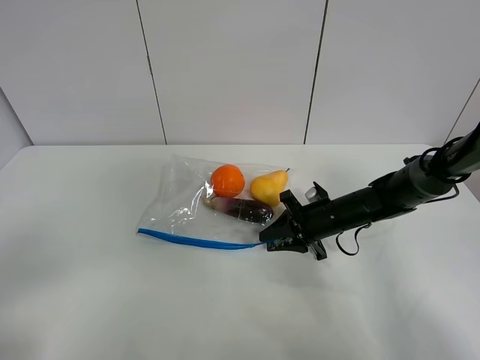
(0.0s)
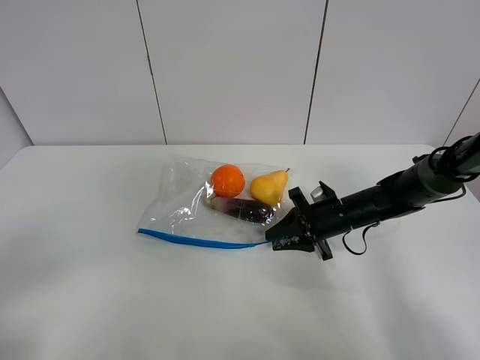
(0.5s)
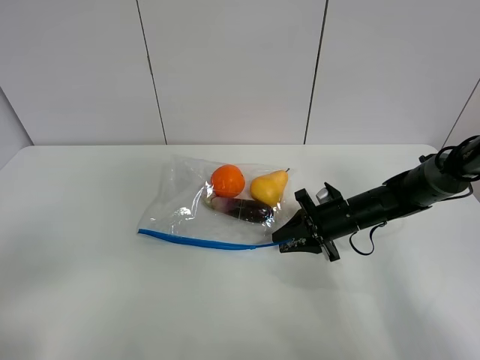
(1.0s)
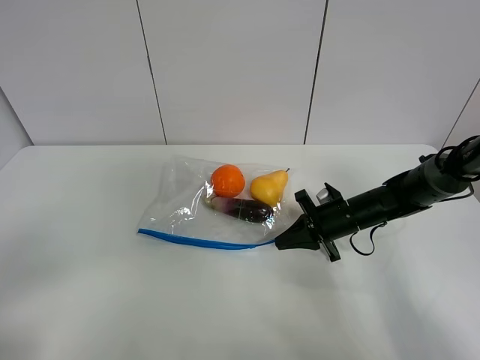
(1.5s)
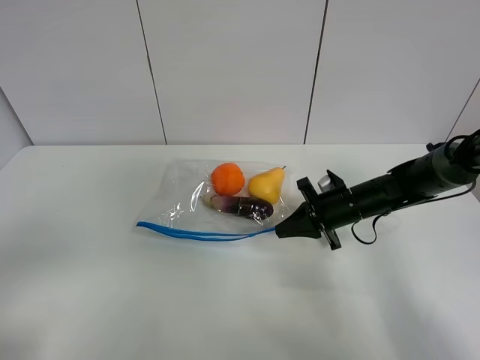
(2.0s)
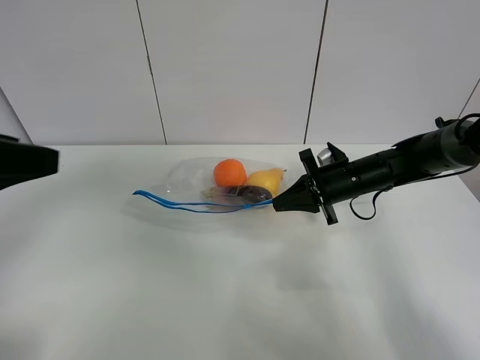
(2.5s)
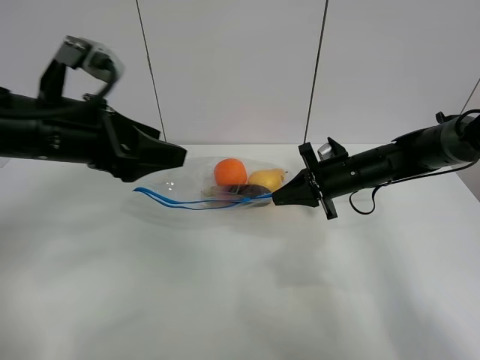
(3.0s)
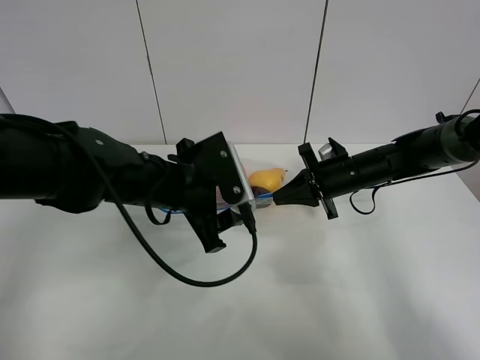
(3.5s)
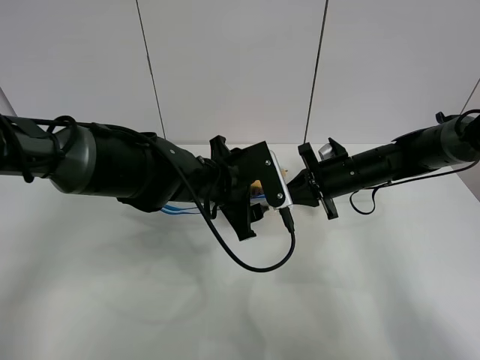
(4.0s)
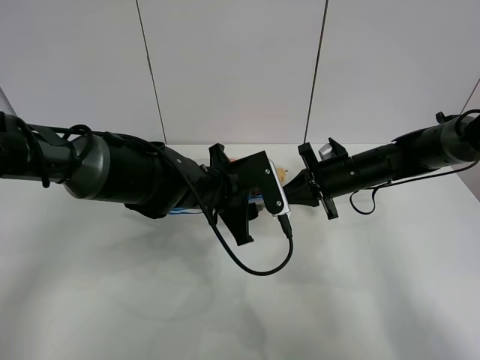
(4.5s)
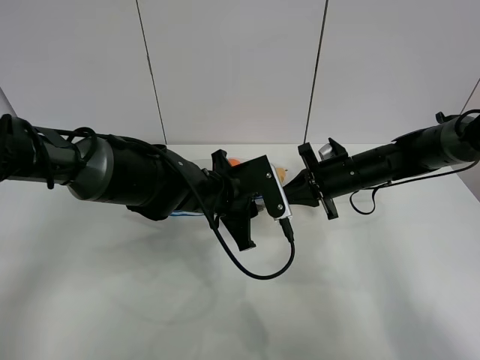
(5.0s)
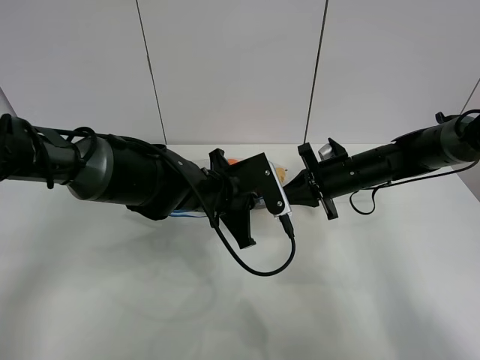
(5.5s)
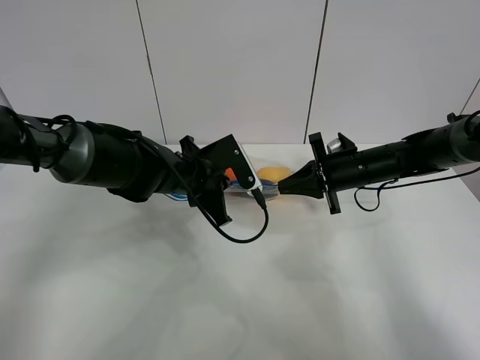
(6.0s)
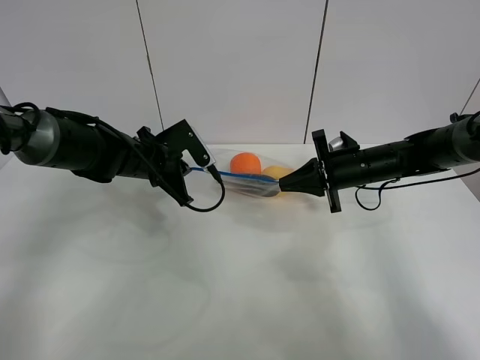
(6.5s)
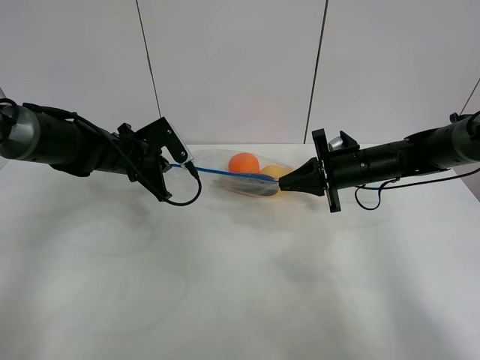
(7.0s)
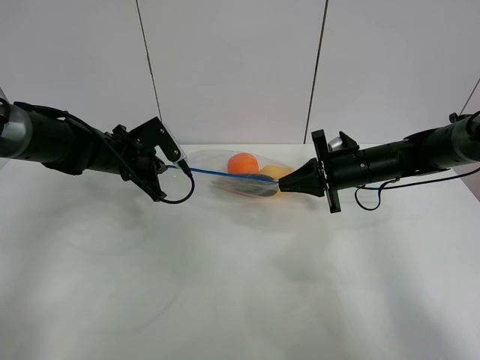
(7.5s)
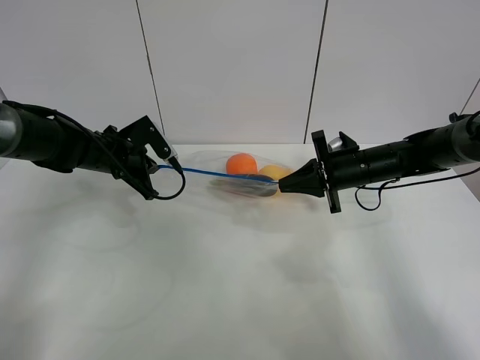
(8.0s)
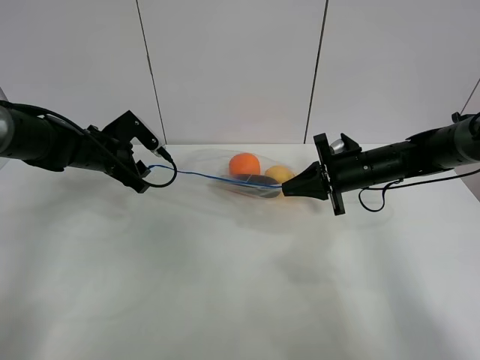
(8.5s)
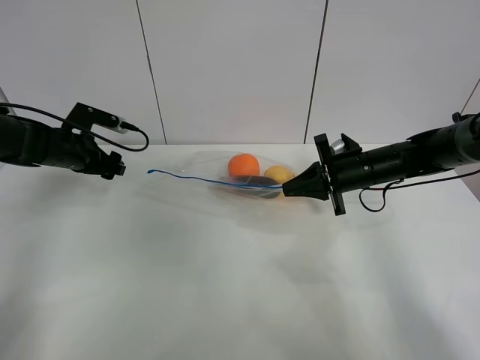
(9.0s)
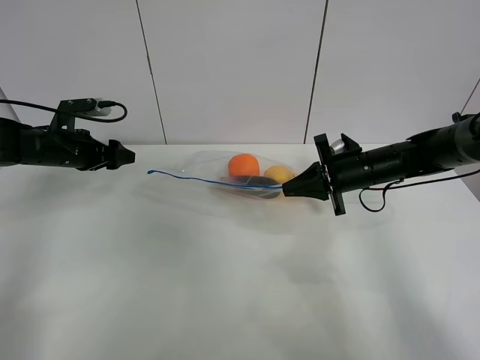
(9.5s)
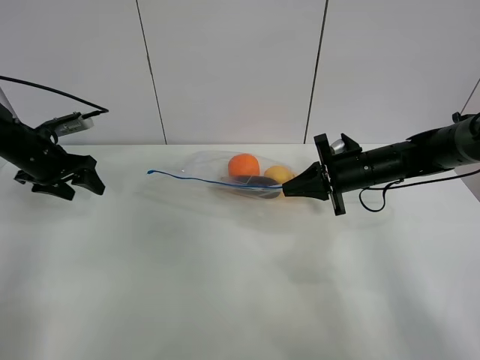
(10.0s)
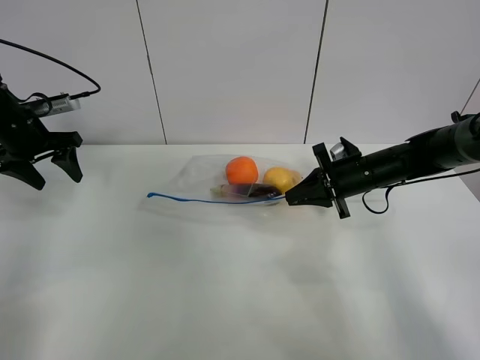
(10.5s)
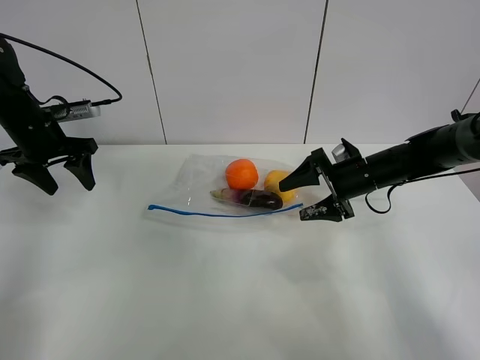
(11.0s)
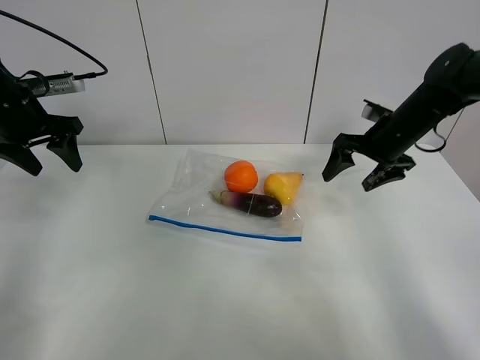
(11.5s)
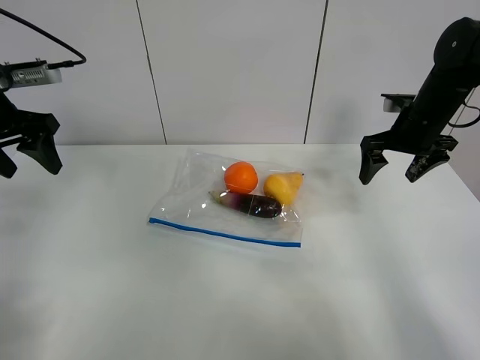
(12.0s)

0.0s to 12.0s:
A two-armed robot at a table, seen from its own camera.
Step, 1.5s to 2.5s: Lift the fruit bag with your right gripper.
Step, 3.0s to 8.5s: Pull the fruit bag with left gripper.
0.0s to 2.0s: There are only small adjustments of the grippers.
2.0s to 4.0s: The left gripper heads forward, to the right and downward, covering roughly 40 cm.
4.0s to 6.0s: The left gripper moves to the left, about 5 cm, and closes.
6.0s to 8.0s: The left gripper is displaced to the left by roughly 15 cm.
8.0s to 10.0s: The left gripper moves to the left, some 15 cm, and opens.
10.0s to 12.0s: The right gripper goes about 10 cm upward and to the right, and opens; the left gripper is displaced upward and backward by about 15 cm.

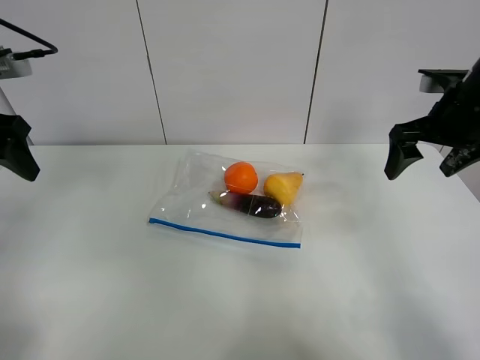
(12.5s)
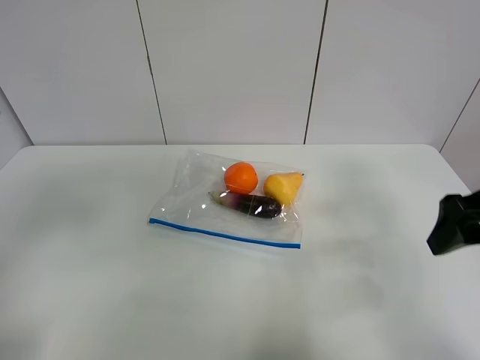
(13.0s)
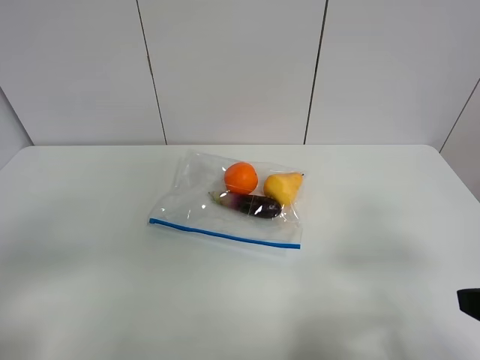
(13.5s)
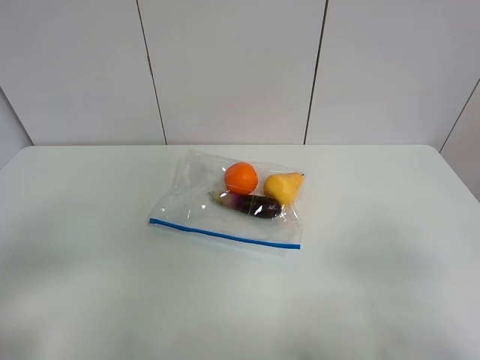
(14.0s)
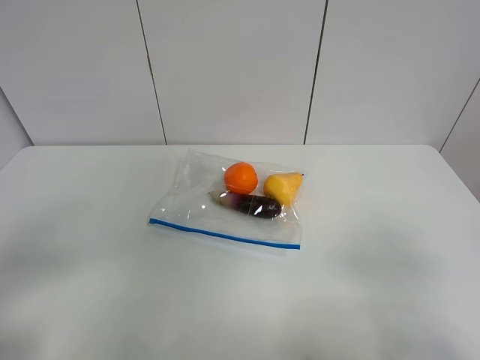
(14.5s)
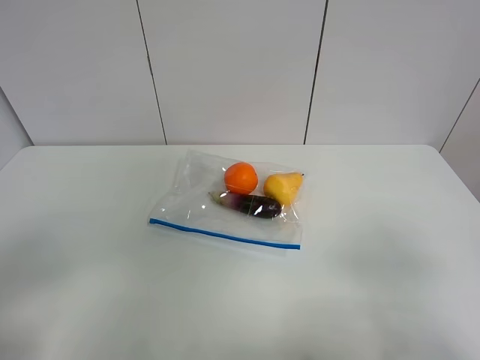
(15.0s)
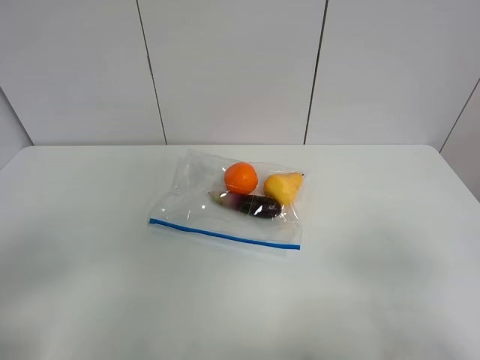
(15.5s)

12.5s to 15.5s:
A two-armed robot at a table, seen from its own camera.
12.5s to 14.0s: The grippers both shift backward by approximately 30 cm.
